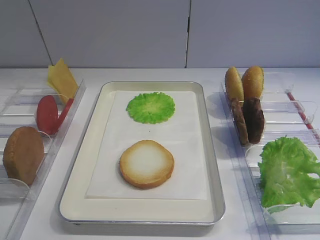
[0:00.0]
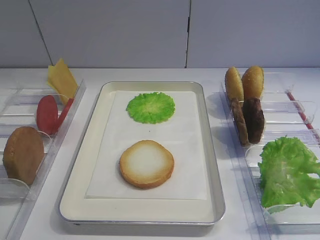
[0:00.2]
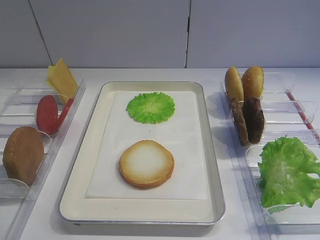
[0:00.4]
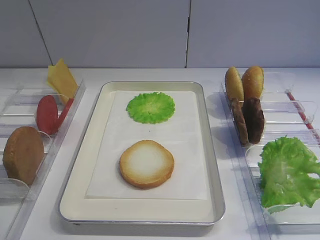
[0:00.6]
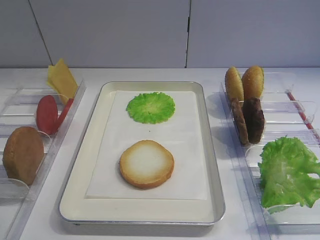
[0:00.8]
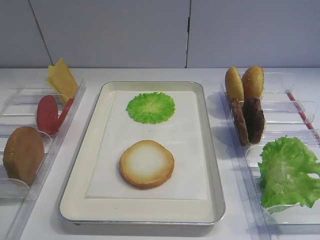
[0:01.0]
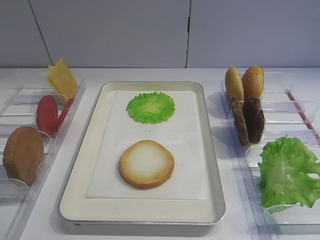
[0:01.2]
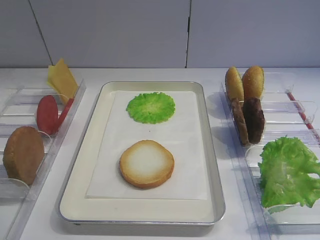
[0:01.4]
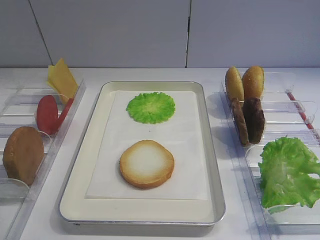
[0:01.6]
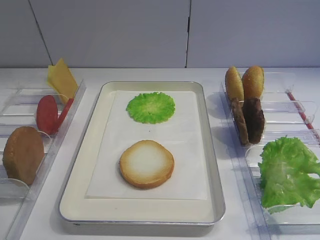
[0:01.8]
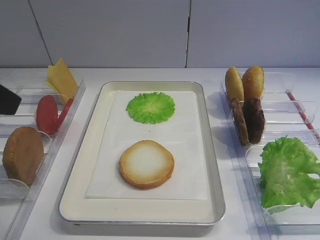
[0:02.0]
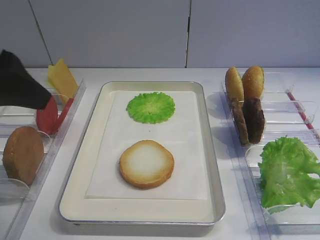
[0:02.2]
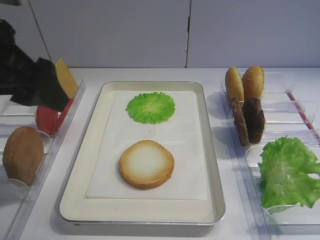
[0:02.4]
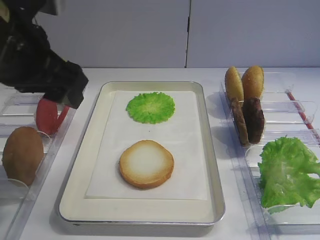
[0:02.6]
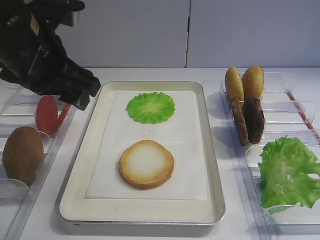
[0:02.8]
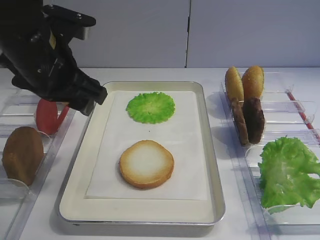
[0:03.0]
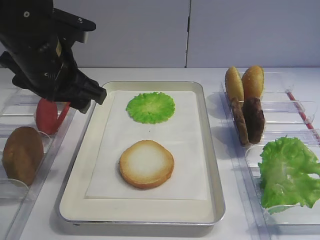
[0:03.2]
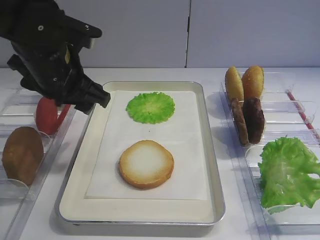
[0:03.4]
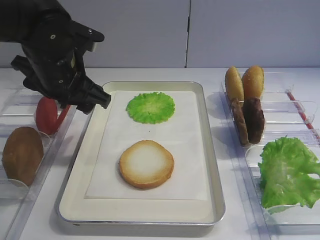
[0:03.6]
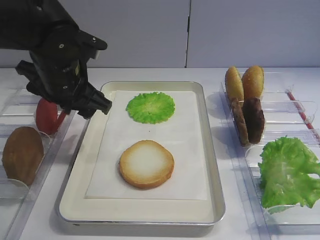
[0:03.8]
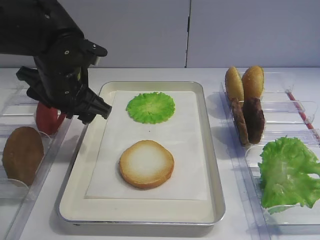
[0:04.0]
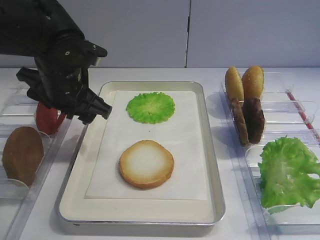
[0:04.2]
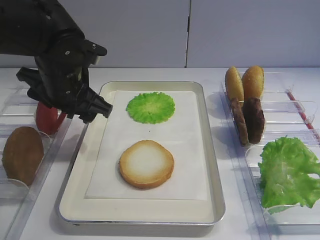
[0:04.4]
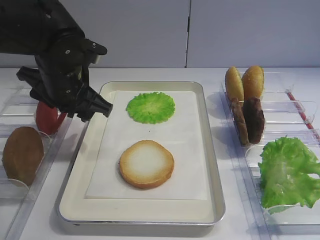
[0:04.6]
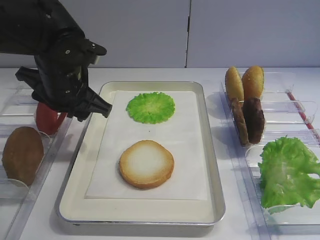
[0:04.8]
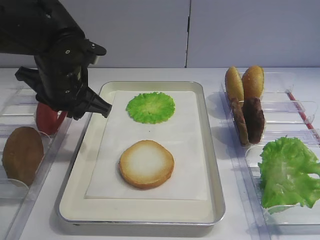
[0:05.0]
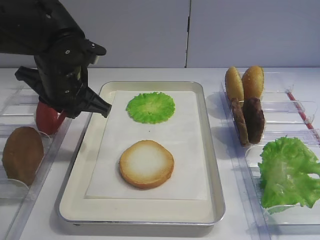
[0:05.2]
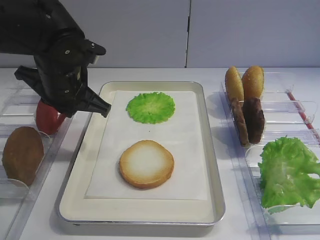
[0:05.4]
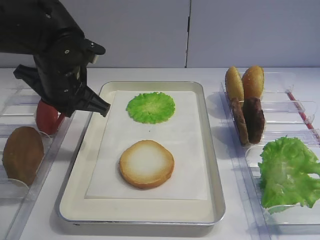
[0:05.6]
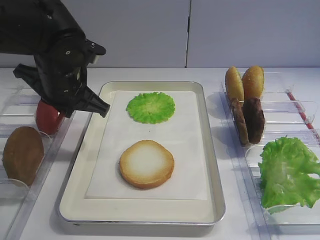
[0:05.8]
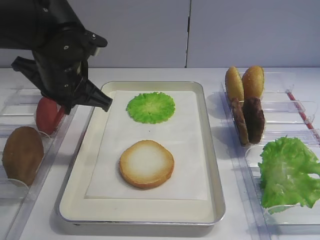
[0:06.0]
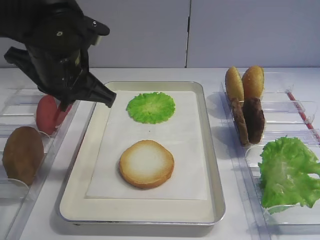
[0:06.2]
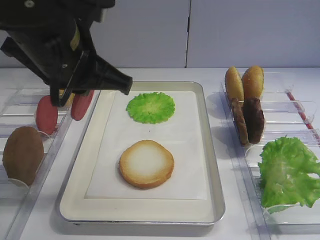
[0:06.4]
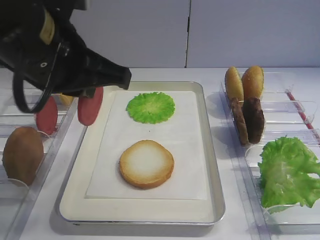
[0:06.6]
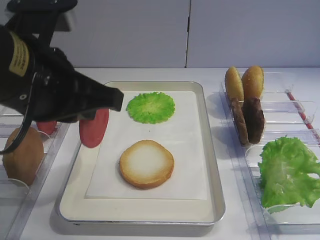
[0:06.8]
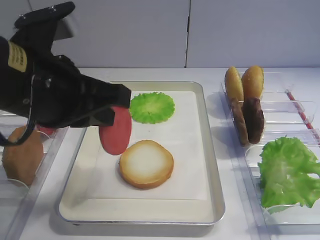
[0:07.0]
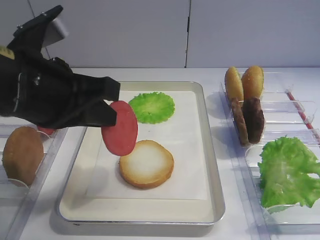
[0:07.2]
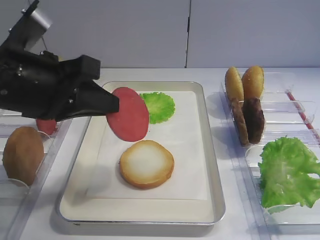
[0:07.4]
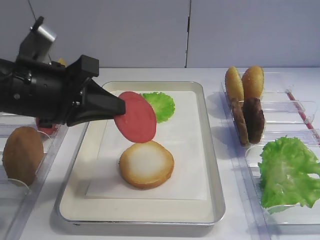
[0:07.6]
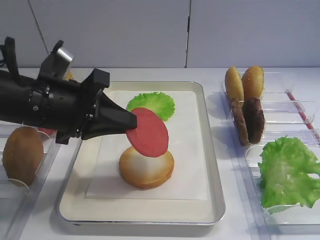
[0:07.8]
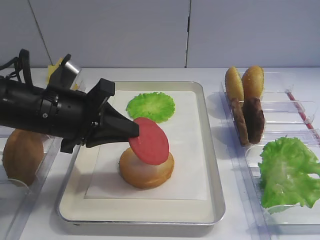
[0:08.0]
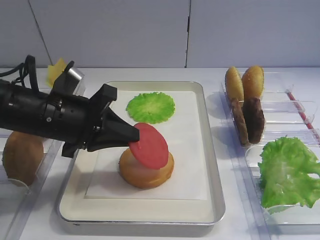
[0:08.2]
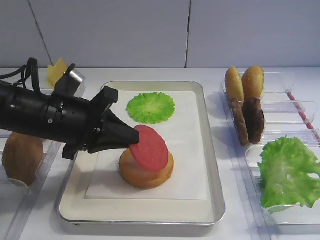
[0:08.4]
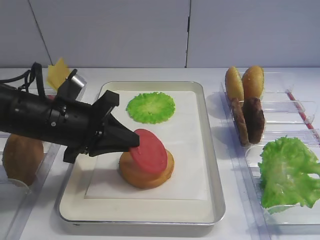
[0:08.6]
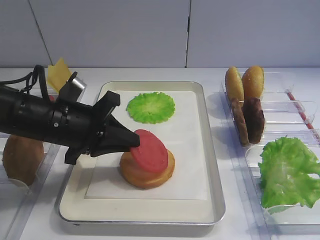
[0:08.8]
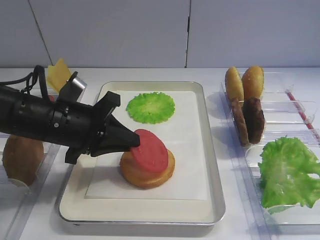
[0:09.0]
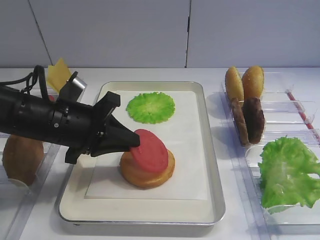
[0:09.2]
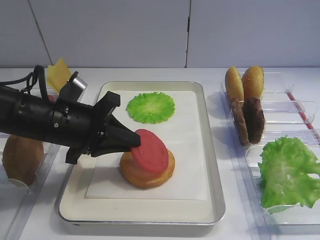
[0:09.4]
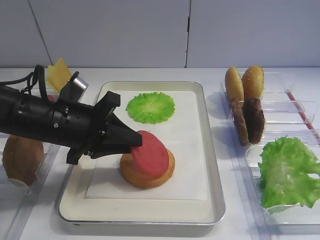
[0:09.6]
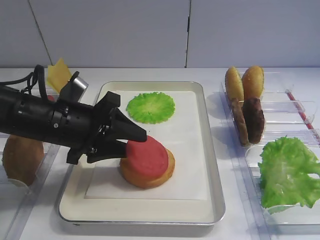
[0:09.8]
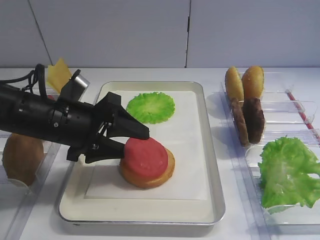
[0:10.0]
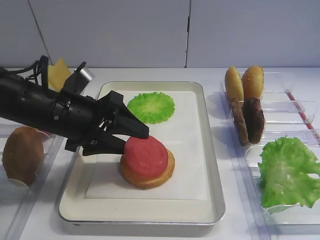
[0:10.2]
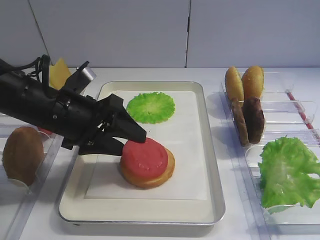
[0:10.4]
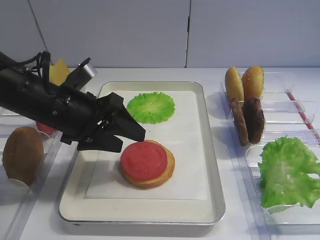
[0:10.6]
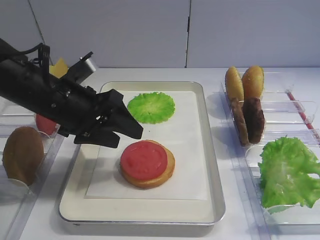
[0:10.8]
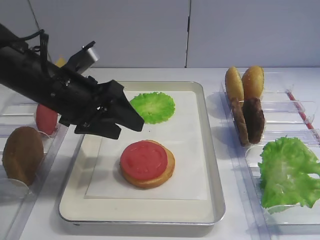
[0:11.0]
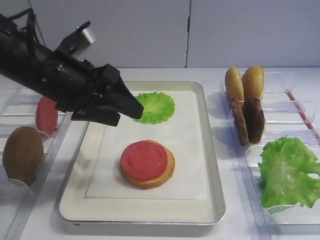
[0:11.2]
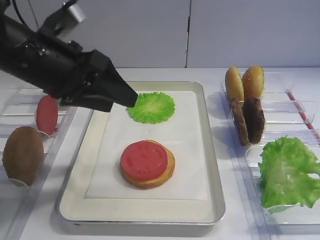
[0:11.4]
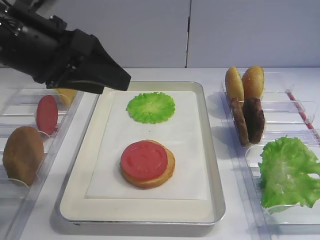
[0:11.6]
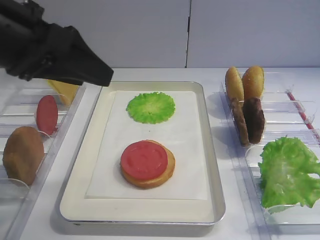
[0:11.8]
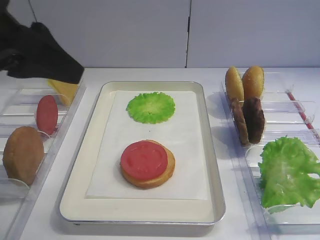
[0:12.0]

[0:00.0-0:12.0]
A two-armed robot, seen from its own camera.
Step, 0:00.0 to 0:06.2: Pick up the tomato slice with the left gripper.
Step, 0:06.4 to 0:10.6: Place the tomato slice on the bread slice with the left gripper.
0:01.6 to 0:03.0: The left gripper is displaced forward and to the right by some 20 cm.
0:03.0 to 0:04.4: The left gripper goes approximately 5 cm downward.
0:04.4 to 0:06.0: The left gripper closes.
0:06.0 to 0:07.6: The left gripper travels backward by approximately 10 cm.
0:07.6 to 0:09.0: The left gripper goes roughly 10 cm downward.
0:09.0 to 0:10.4: The left gripper opens.
0:10.4 to 0:12.0: The left gripper goes approximately 20 cm upward and backward.

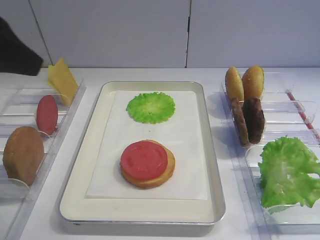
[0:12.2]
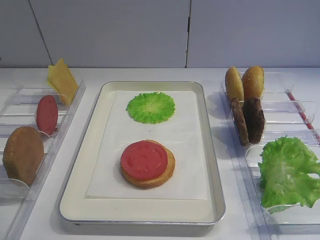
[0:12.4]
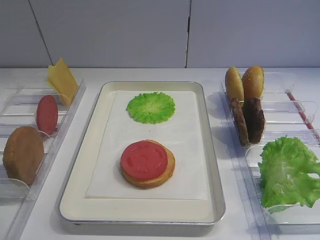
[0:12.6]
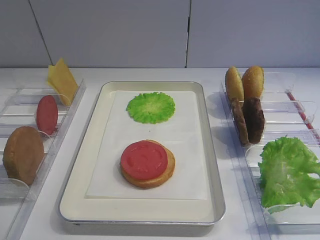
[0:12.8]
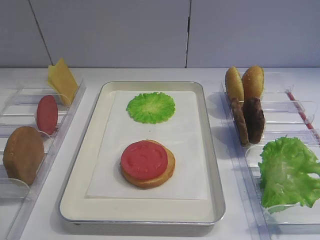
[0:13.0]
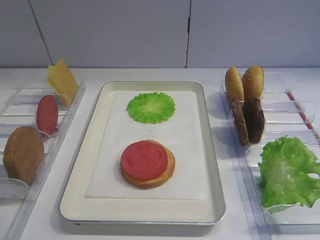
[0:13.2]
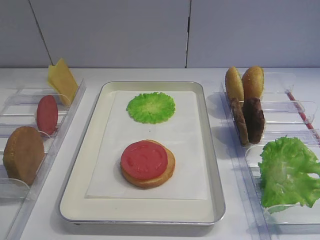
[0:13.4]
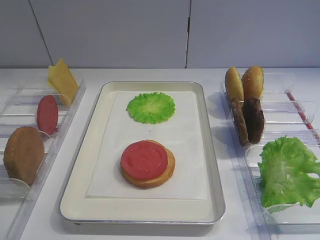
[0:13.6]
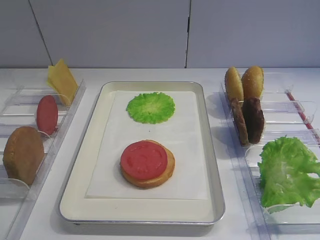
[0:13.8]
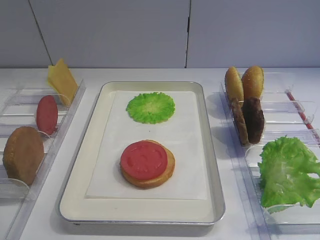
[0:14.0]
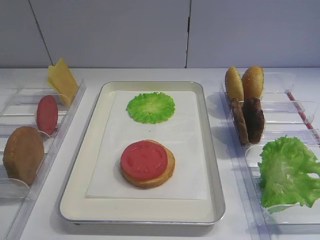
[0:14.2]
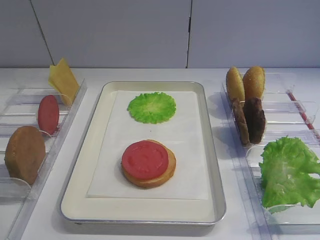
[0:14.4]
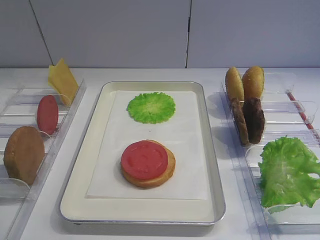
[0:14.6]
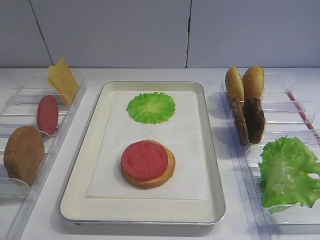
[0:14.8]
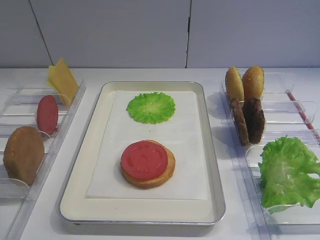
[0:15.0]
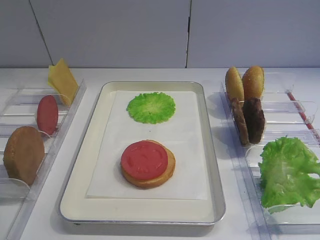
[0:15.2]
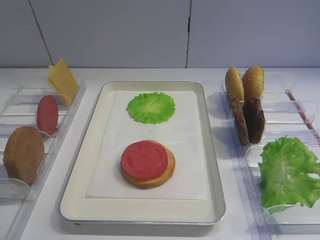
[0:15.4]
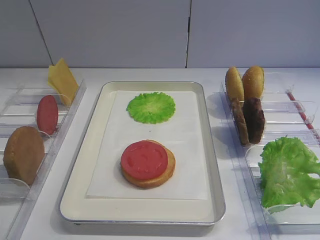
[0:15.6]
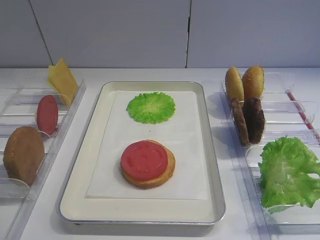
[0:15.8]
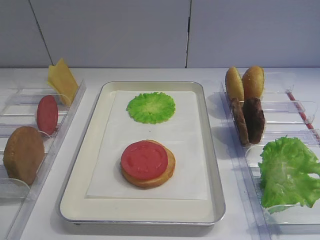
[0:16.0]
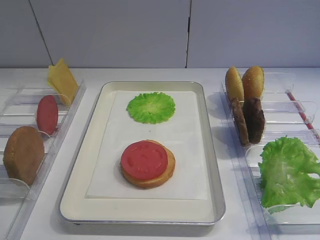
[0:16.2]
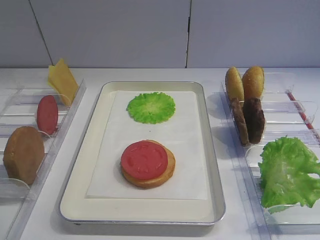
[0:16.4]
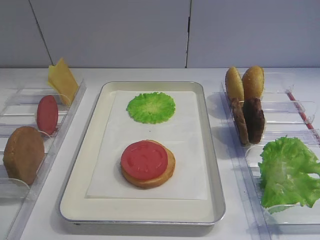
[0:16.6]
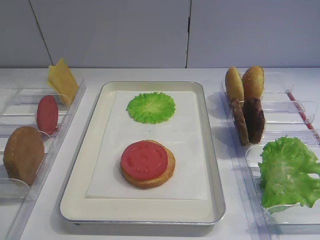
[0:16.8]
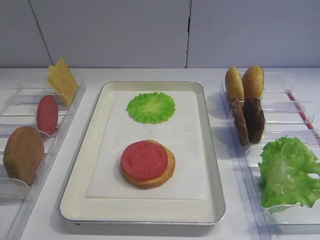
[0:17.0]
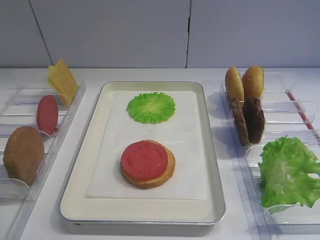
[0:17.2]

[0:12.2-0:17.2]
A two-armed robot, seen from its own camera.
0:12.2 to 0:13.8: The left gripper heads backward and downward, covering approximately 20 cm.
0:15.6 to 0:17.2: Both grippers stay put.

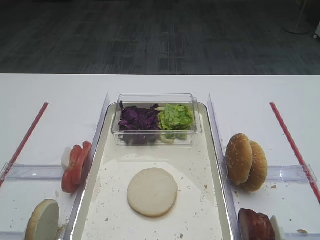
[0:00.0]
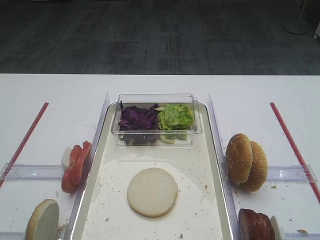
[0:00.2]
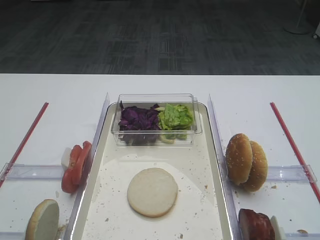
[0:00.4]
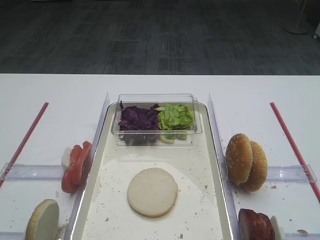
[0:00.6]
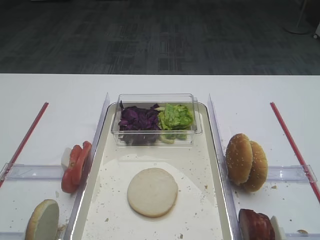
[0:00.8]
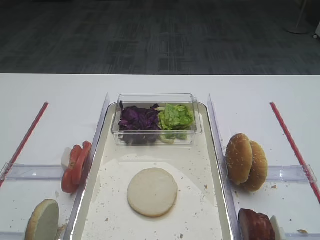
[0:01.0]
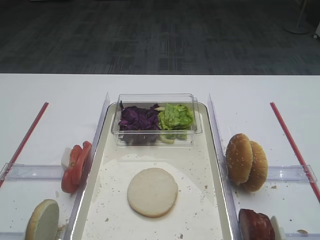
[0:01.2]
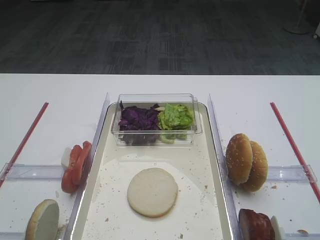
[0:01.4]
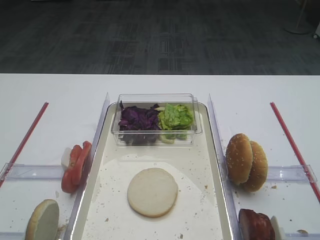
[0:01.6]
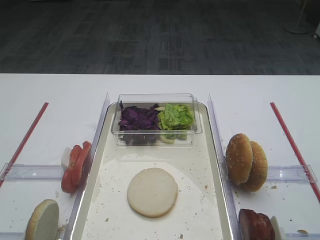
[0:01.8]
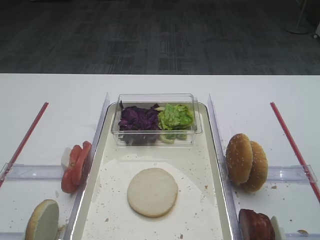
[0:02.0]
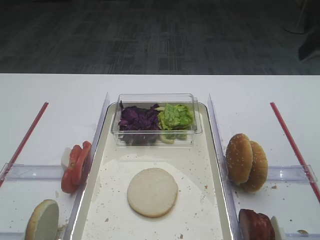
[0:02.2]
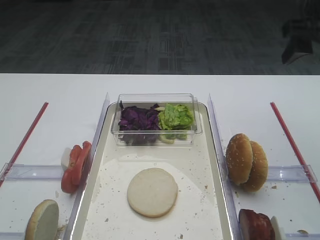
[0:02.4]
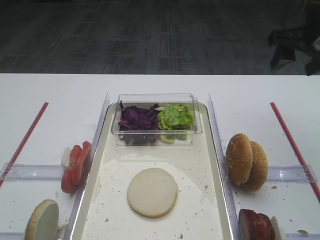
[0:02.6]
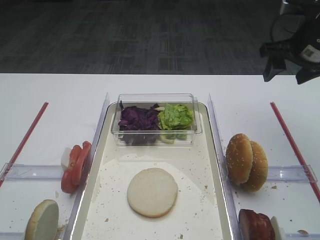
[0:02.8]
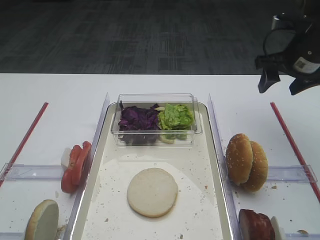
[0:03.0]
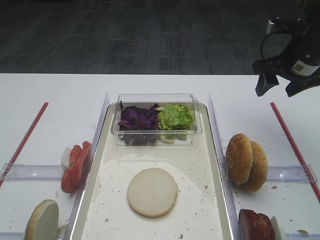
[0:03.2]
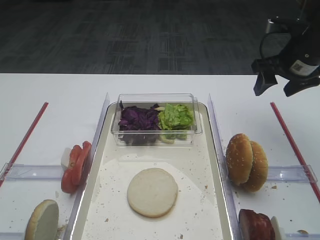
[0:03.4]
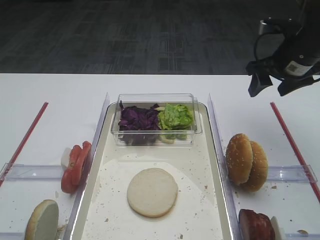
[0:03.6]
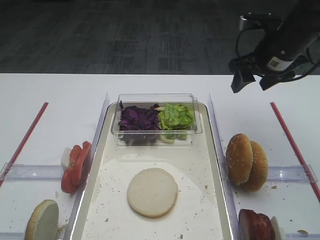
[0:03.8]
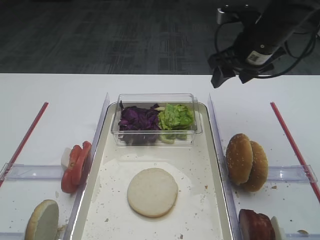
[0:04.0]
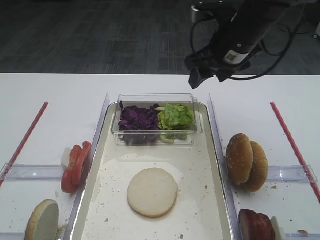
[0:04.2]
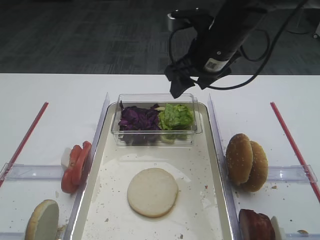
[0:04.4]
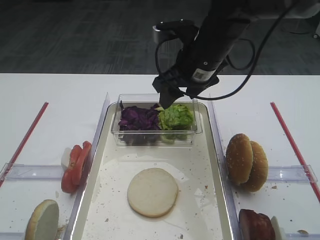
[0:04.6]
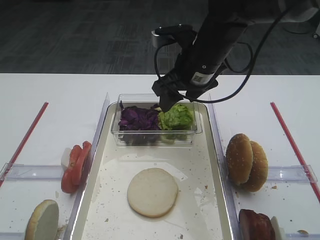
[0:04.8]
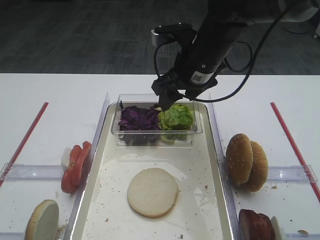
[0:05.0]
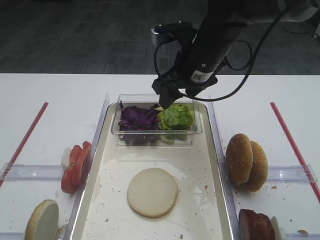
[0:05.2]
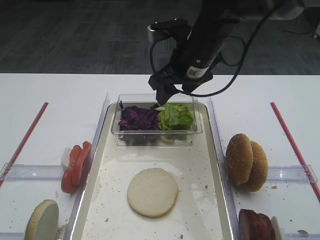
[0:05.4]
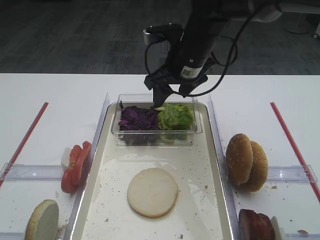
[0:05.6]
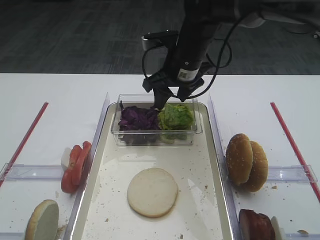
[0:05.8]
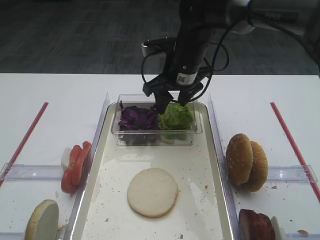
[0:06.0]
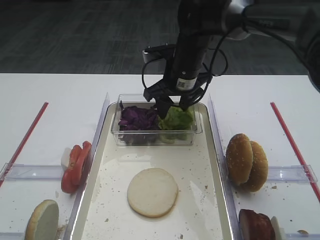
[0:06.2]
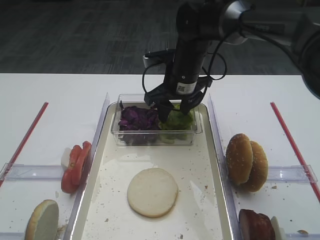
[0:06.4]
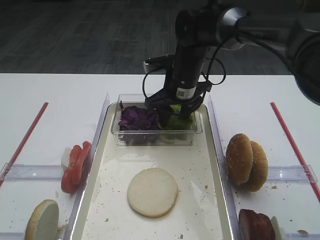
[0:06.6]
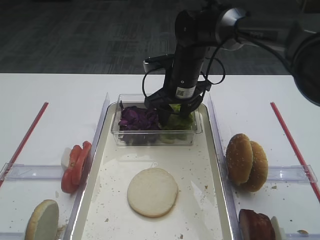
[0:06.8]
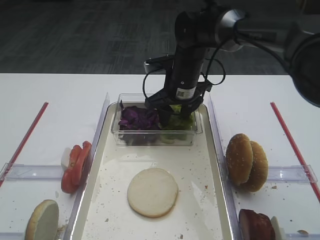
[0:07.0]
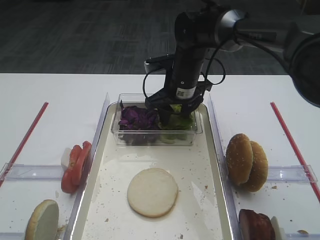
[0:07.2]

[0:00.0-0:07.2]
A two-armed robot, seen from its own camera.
0:01.4 to 0:02.8: The right gripper travels forward by roughly 35 cm.
0:02.8 to 0:04.4: The right gripper shifts some 15 cm to the left.
0:04.4 to 0:05.8: The right gripper changes place by some 5 cm.
0:05.8 to 0:07.2: The right gripper goes some 5 cm downward.
